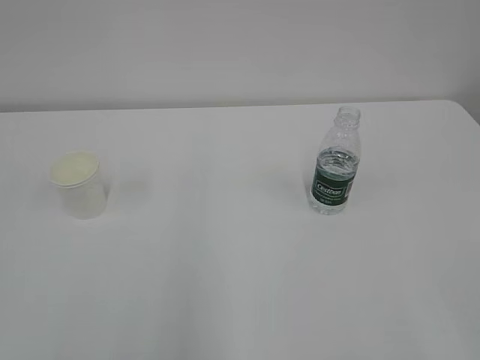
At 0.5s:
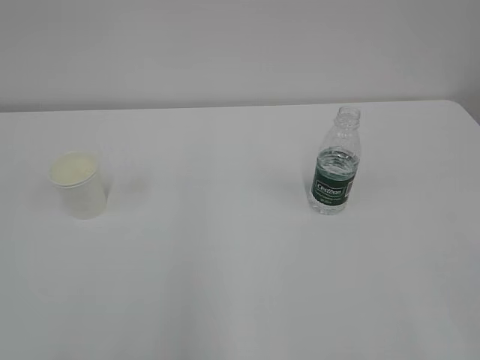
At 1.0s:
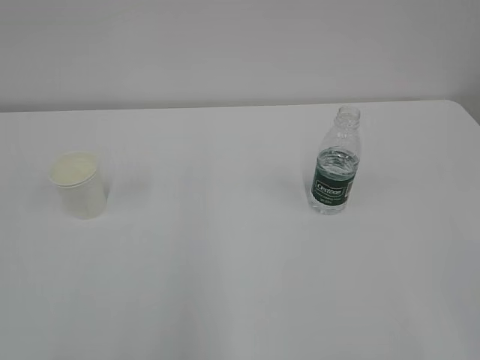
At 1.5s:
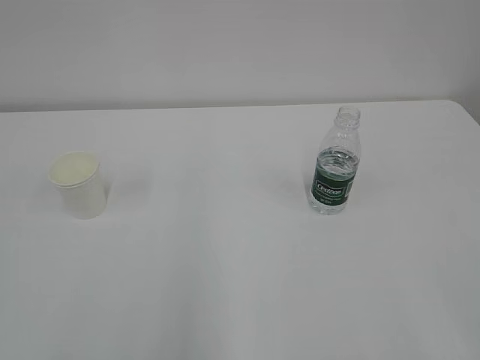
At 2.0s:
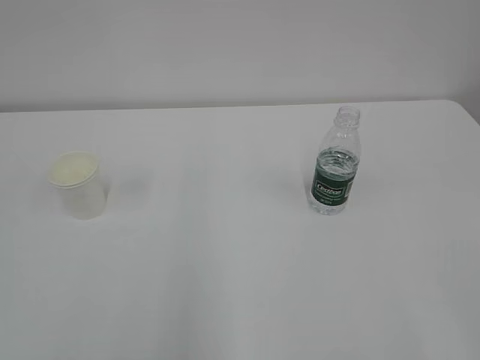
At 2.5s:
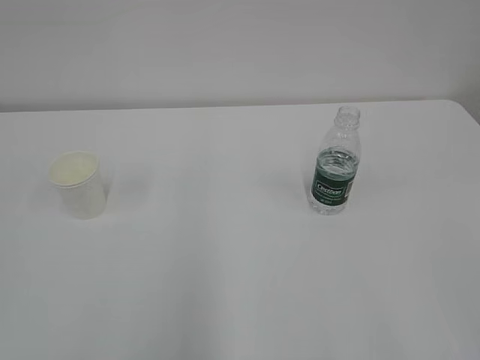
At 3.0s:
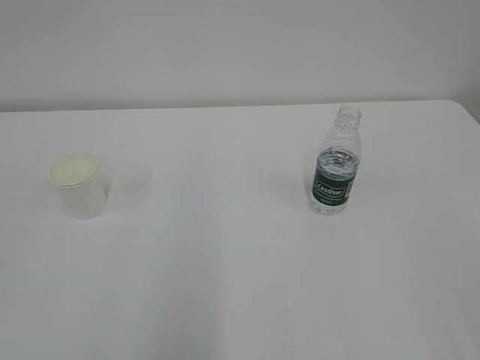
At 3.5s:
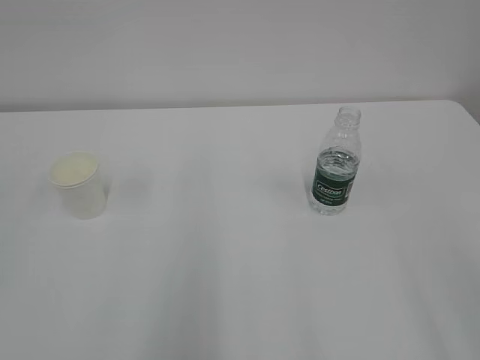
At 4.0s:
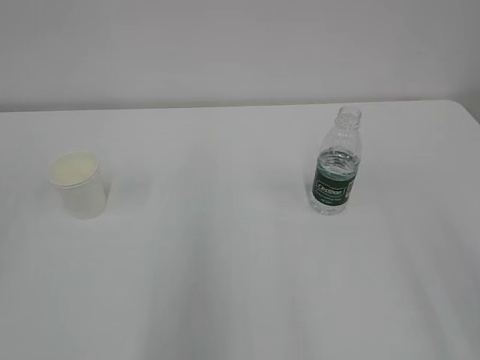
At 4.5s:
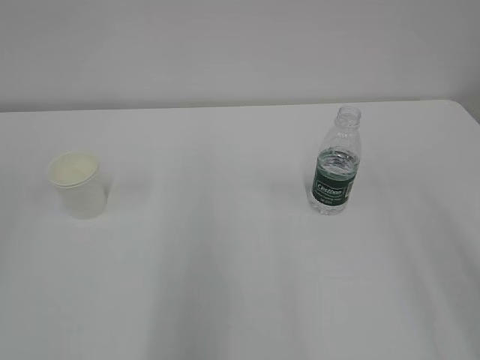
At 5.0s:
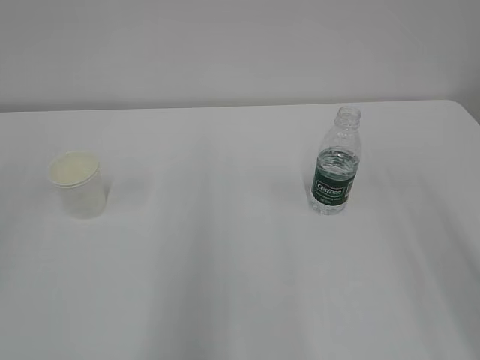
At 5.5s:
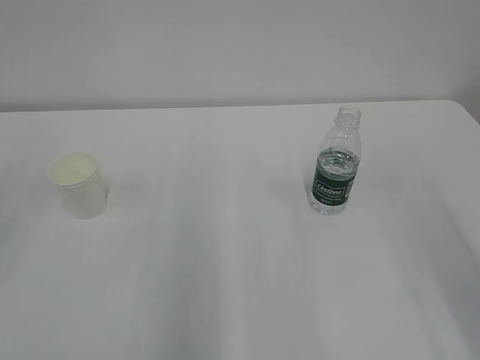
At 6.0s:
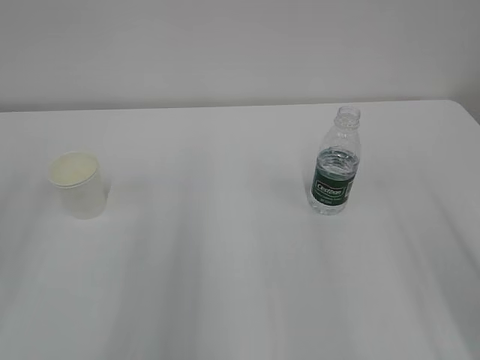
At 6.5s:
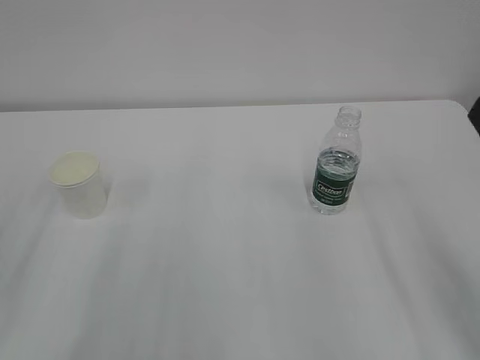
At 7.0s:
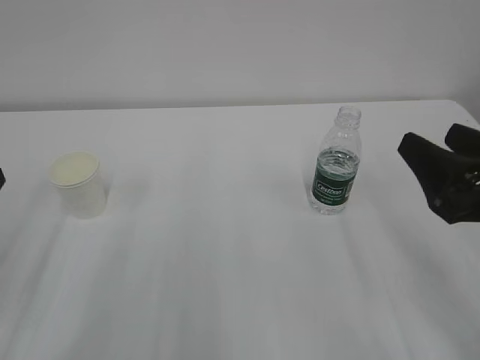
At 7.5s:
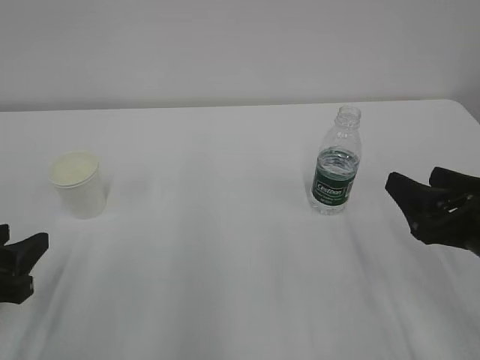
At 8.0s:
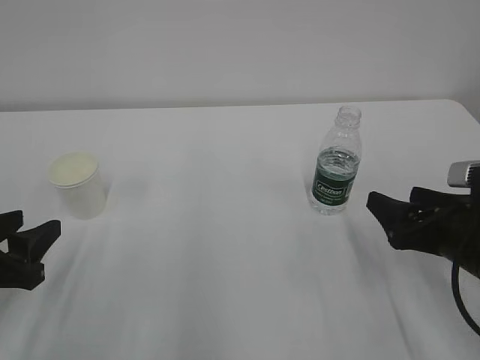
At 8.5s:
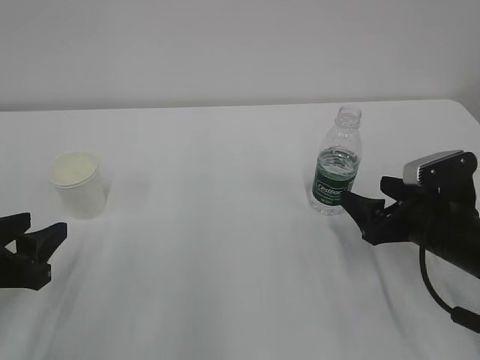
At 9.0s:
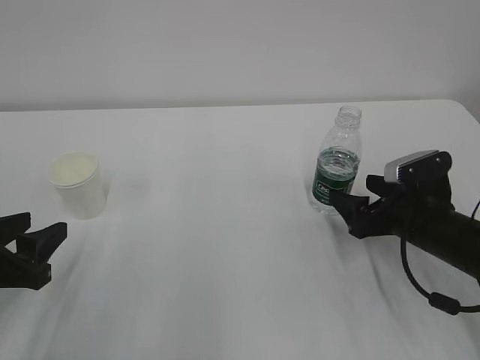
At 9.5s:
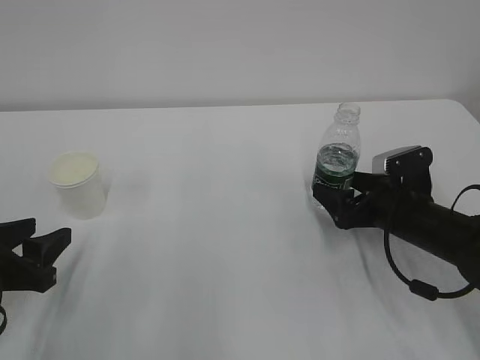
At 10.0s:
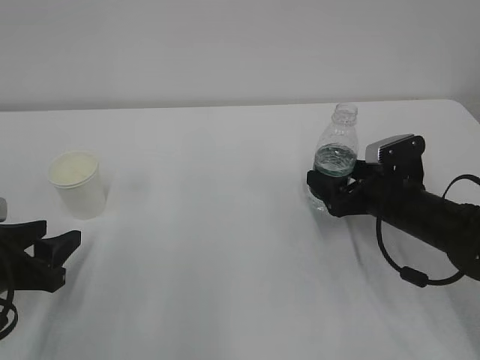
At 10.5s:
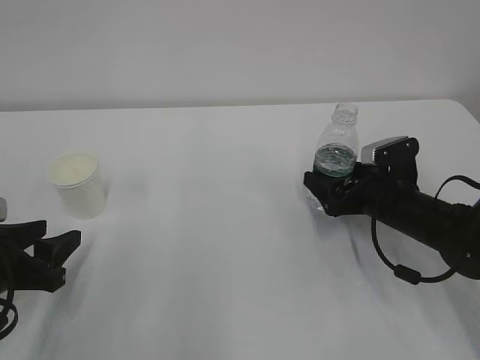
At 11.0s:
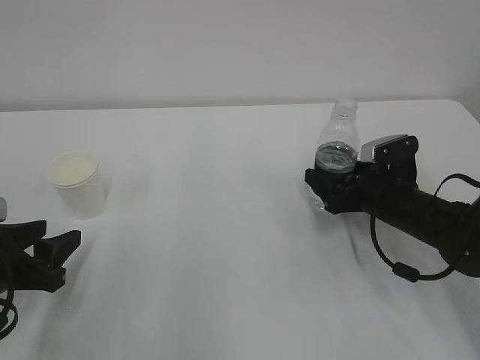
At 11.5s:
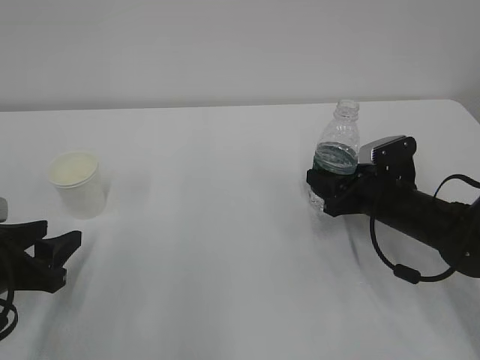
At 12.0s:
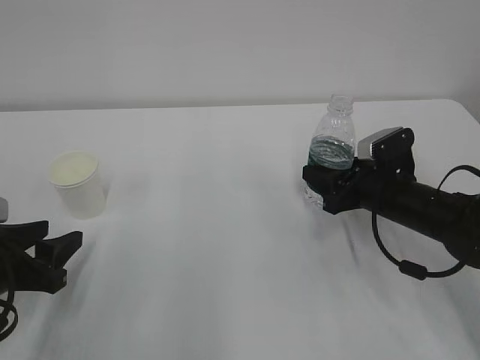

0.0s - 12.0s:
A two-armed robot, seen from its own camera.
6.0s - 8.0s: The left gripper is displaced downward by roughly 15 cm. Meanwhile the right gripper is displaced downward and forward by roughly 20 cm.
8.0s - 10.0s: The right gripper is displaced forward by about 10 cm.
10.0s - 12.0s: The right gripper closes its fingers.

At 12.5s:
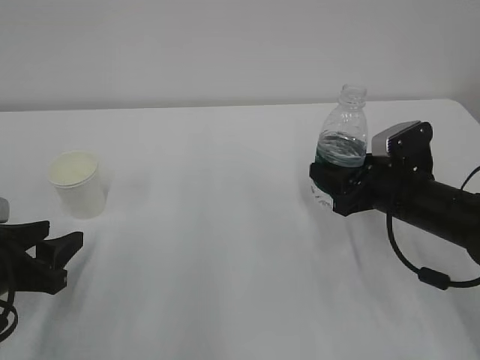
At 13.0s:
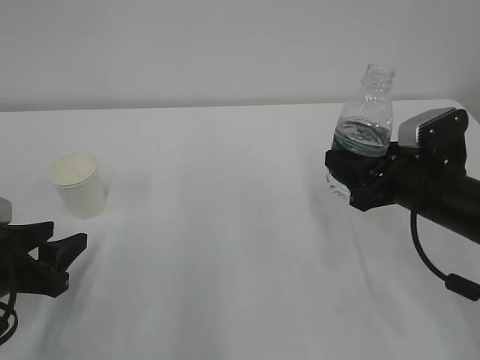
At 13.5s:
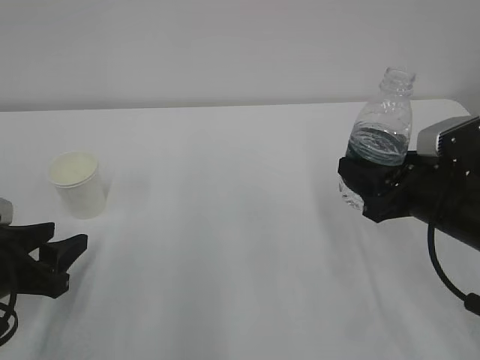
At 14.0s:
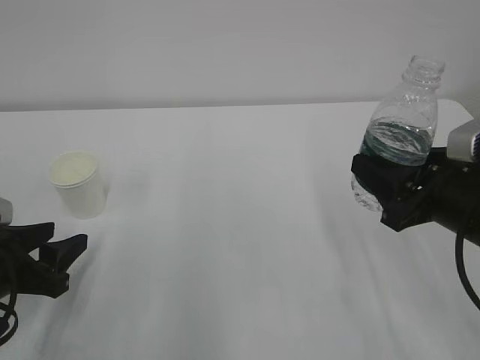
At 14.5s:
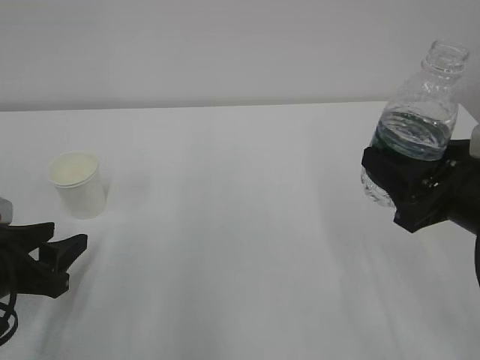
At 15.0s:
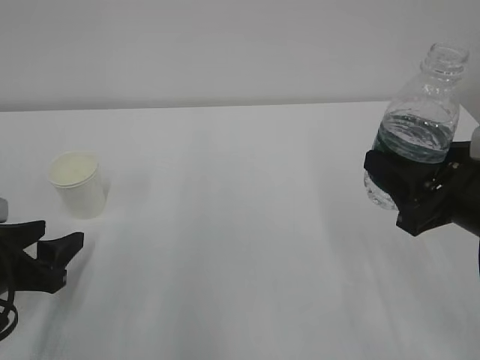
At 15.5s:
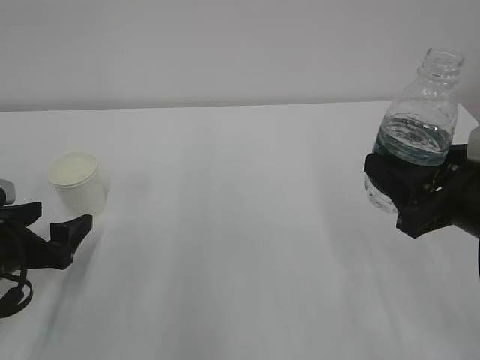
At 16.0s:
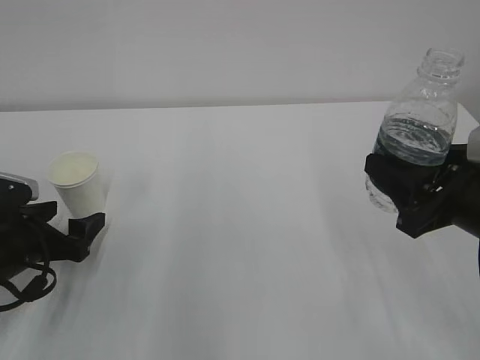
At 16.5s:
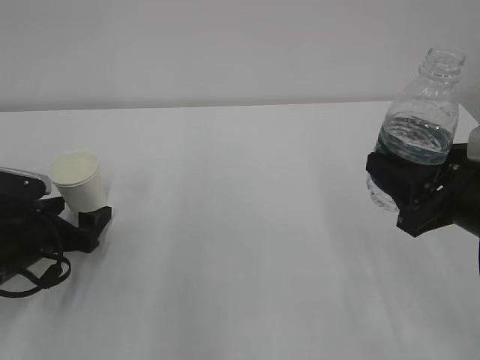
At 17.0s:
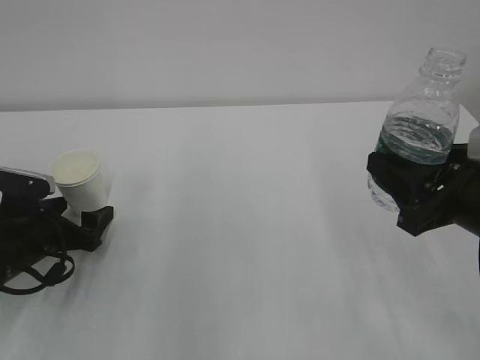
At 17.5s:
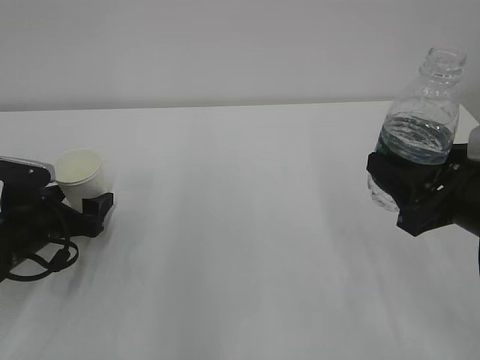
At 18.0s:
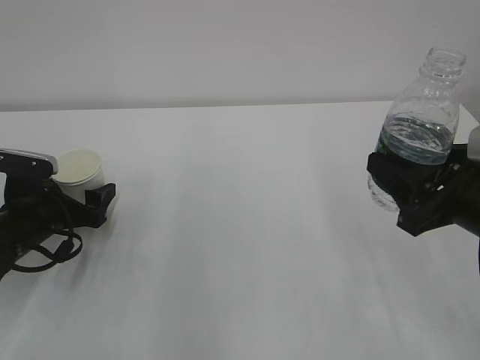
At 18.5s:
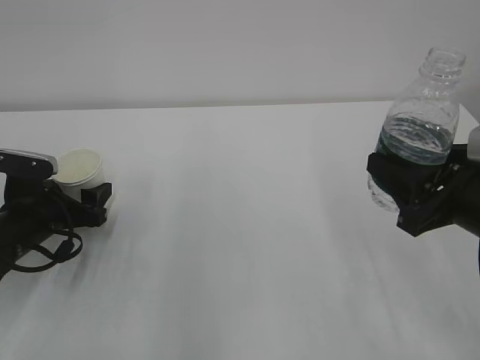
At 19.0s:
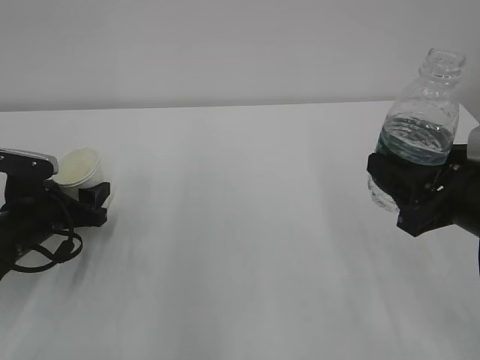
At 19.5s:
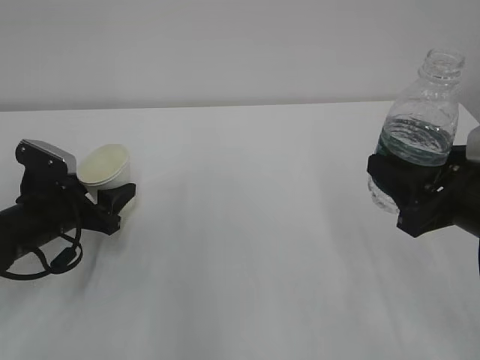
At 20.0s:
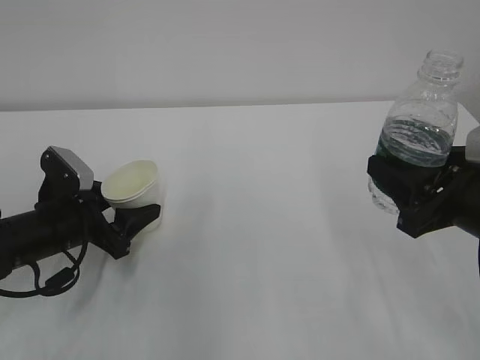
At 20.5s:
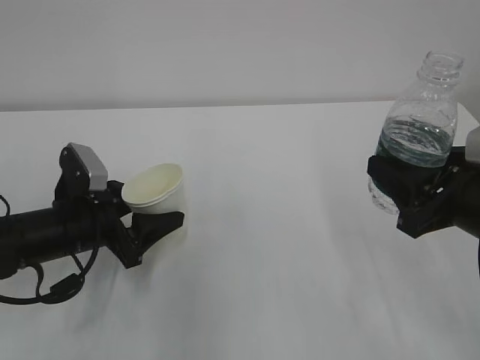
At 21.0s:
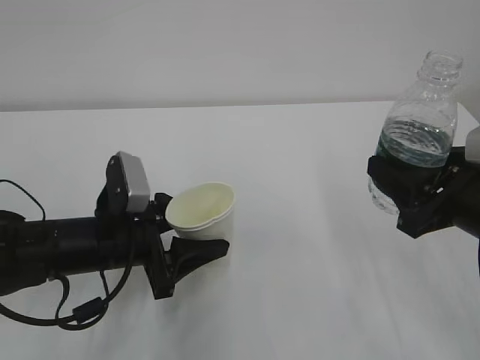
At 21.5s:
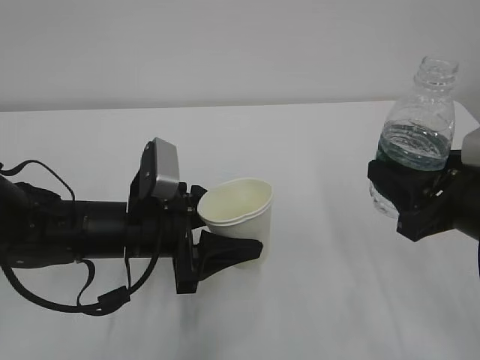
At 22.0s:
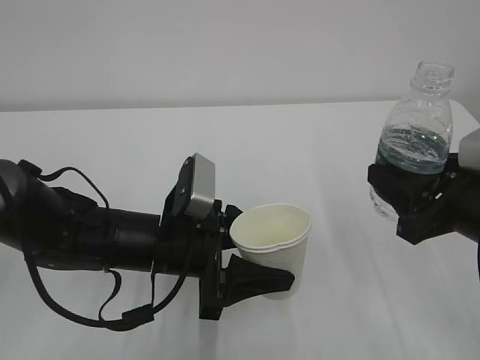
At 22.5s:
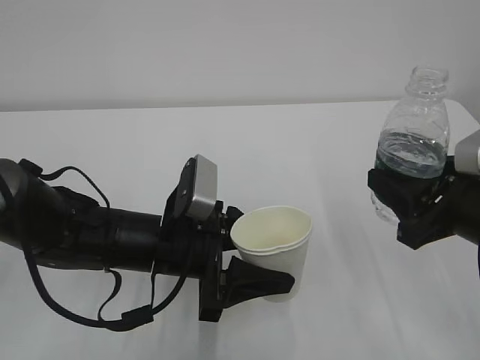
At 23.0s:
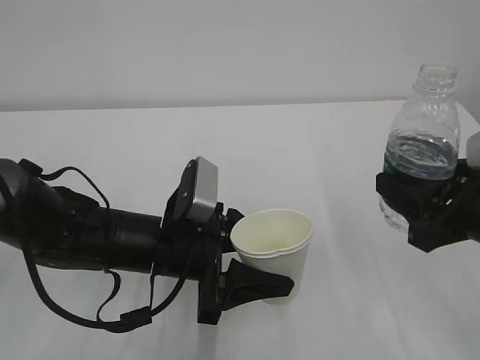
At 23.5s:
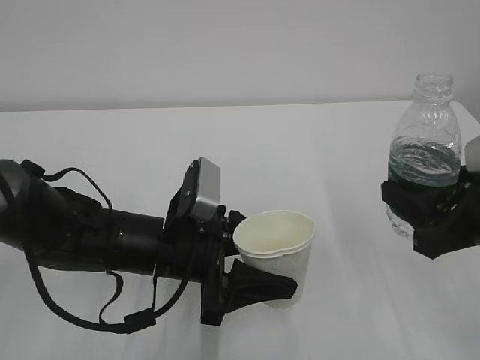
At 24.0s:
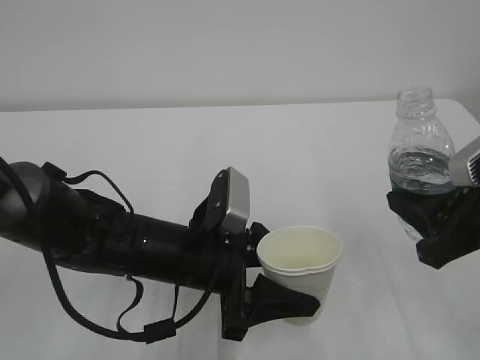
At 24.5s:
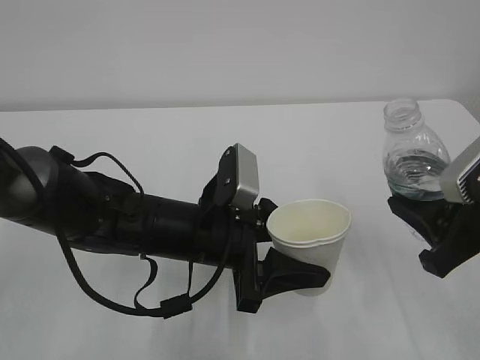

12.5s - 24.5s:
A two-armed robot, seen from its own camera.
12.5s - 14.5s: The right gripper is displaced backward and upward by some 15 cm.
14.5s - 16.5s: The left gripper shifts about 5 cm forward, and opens its fingers.
16.5s - 18.5s: The left gripper closes its fingers.
18.5s - 20.5s: The left gripper travels to the right by approximately 5 cm.
20.5s - 22.5s: The left gripper shifts about 10 cm to the right.

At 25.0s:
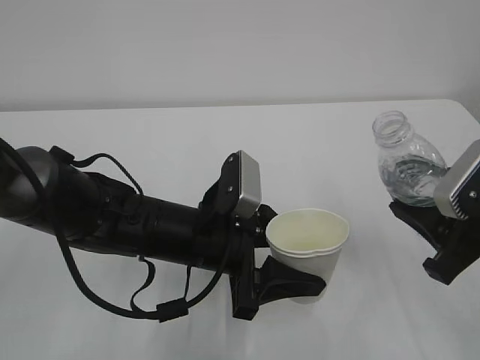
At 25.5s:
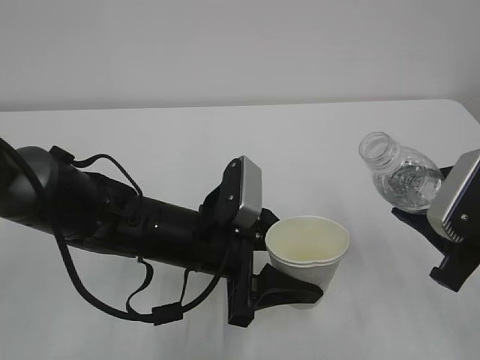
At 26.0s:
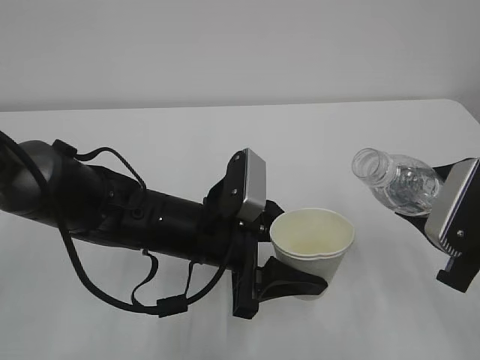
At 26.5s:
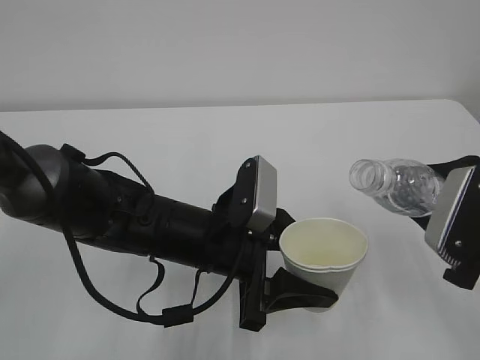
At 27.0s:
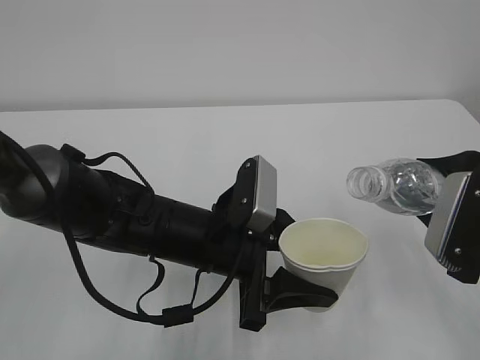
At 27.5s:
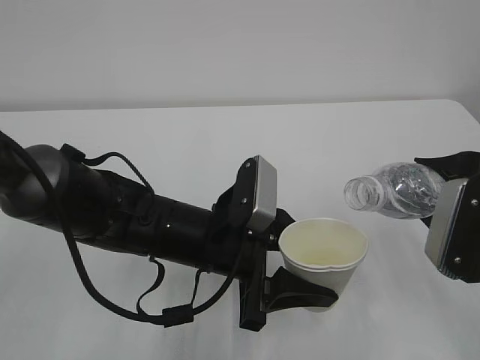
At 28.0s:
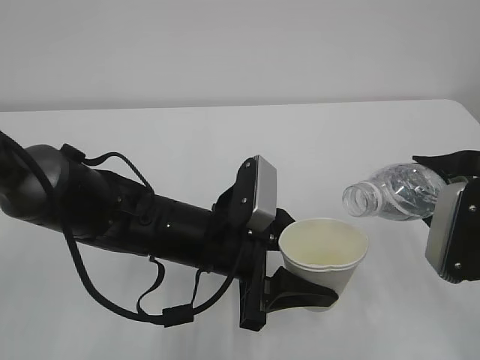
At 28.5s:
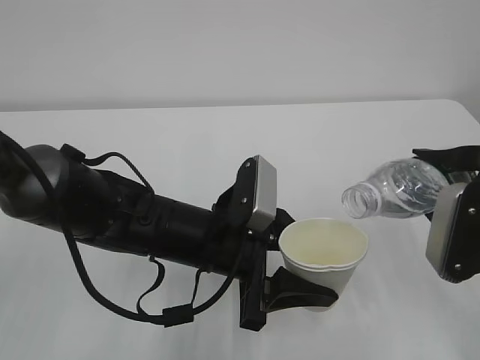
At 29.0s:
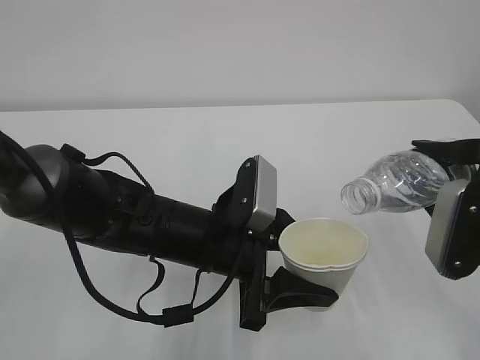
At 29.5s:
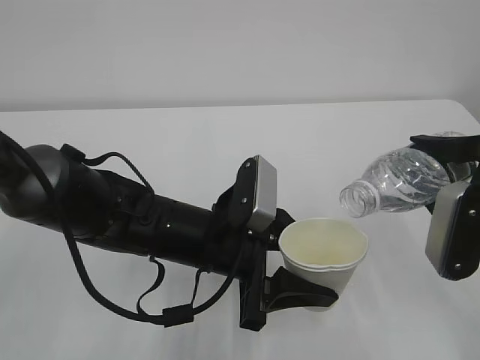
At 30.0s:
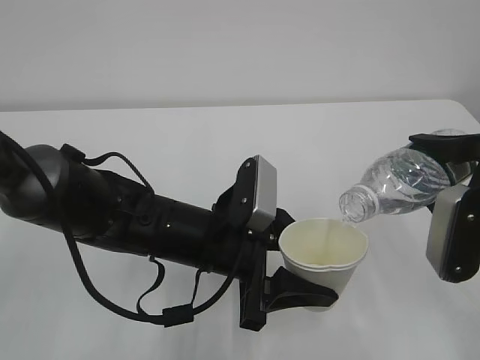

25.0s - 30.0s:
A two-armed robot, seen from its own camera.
27.5s - 30.0s: The grippers make only small movements.
